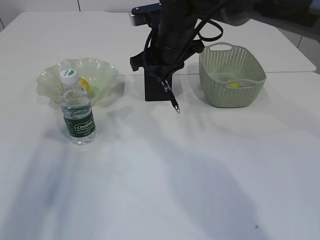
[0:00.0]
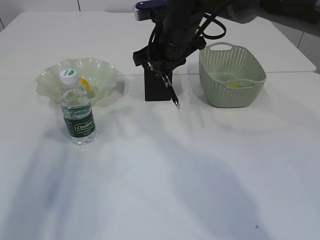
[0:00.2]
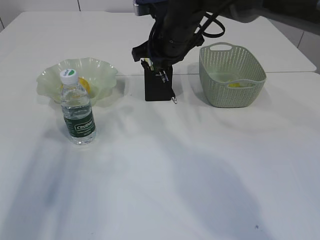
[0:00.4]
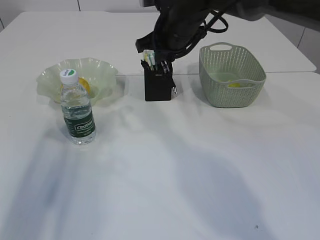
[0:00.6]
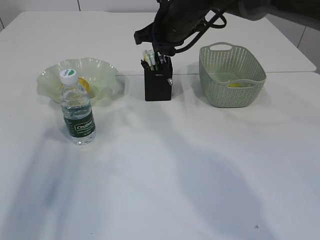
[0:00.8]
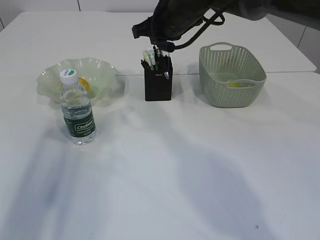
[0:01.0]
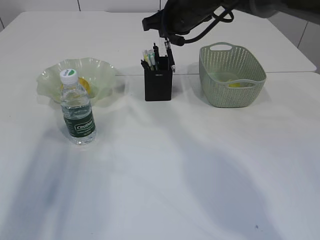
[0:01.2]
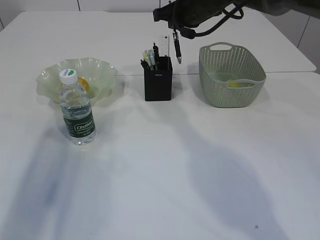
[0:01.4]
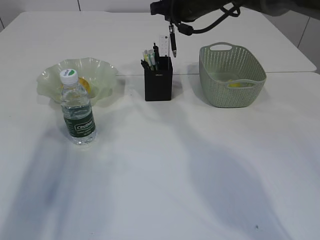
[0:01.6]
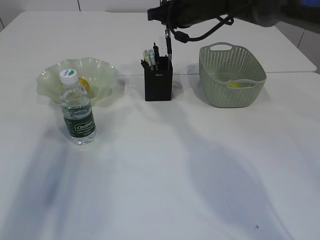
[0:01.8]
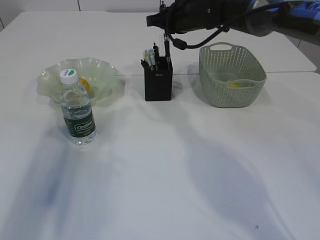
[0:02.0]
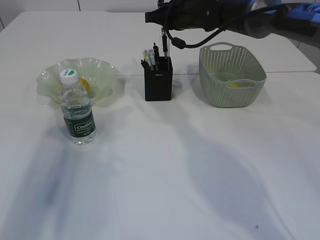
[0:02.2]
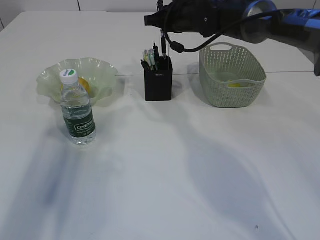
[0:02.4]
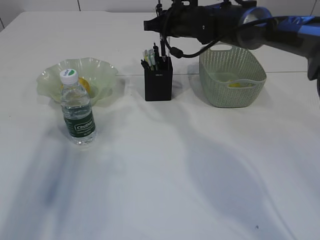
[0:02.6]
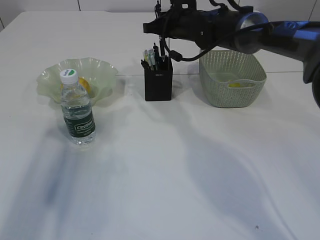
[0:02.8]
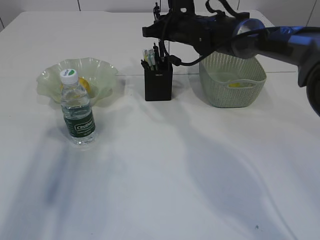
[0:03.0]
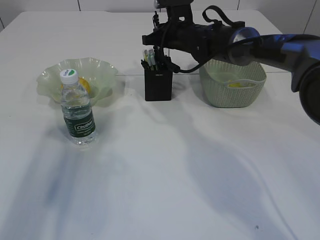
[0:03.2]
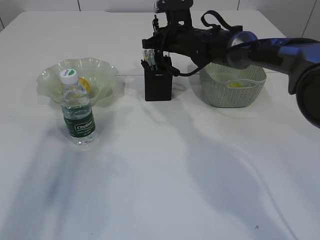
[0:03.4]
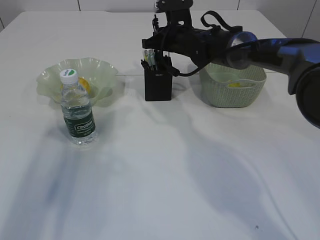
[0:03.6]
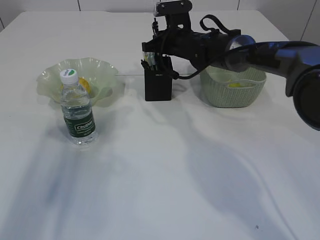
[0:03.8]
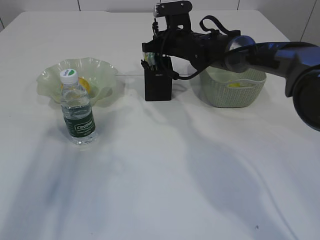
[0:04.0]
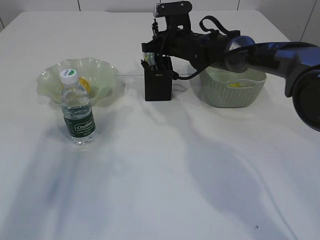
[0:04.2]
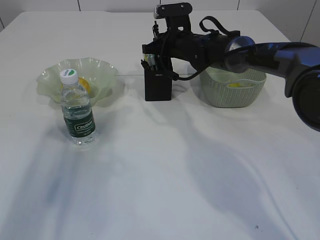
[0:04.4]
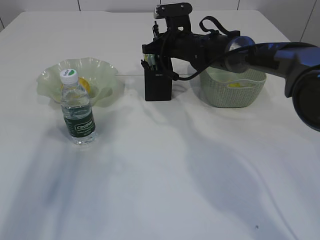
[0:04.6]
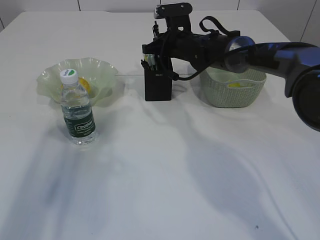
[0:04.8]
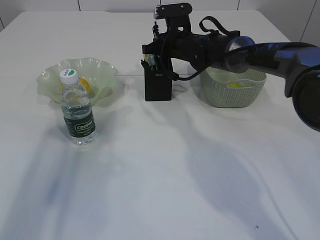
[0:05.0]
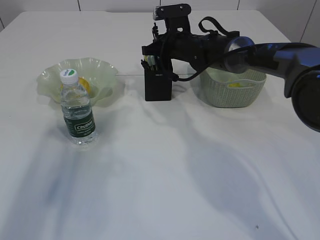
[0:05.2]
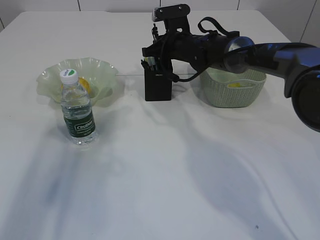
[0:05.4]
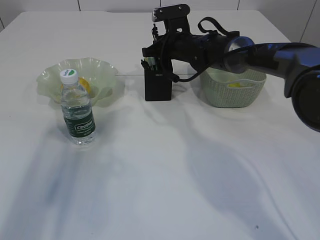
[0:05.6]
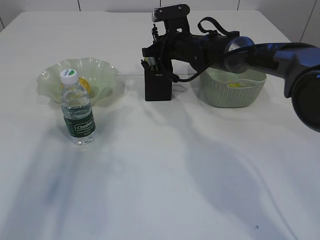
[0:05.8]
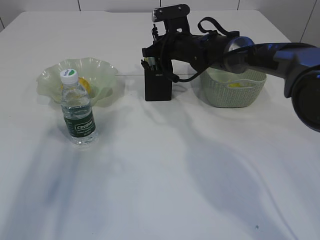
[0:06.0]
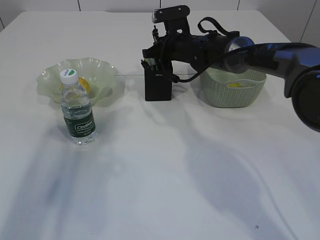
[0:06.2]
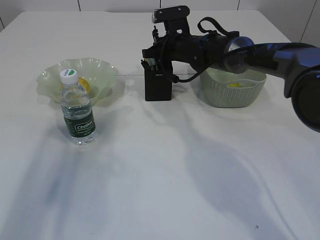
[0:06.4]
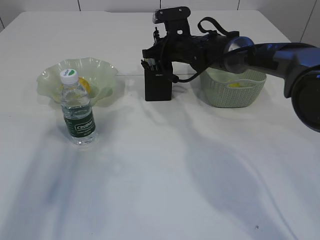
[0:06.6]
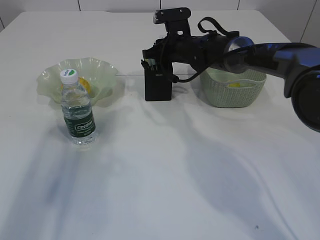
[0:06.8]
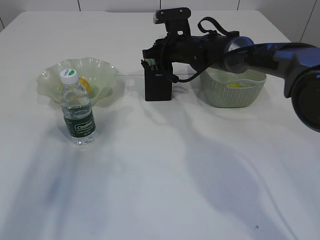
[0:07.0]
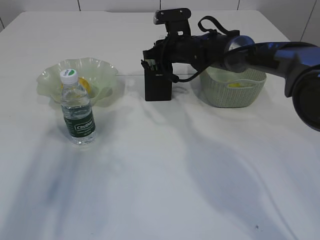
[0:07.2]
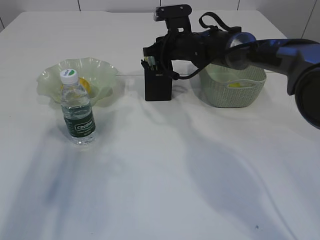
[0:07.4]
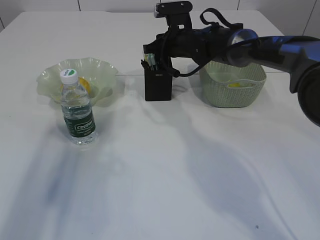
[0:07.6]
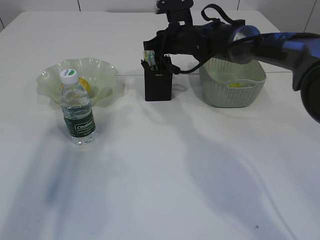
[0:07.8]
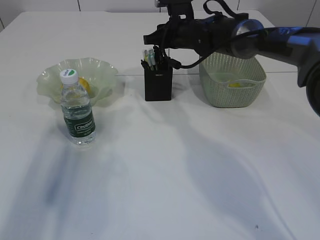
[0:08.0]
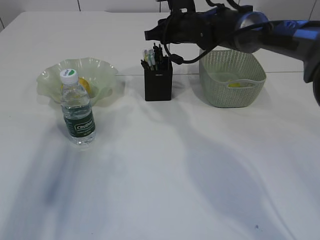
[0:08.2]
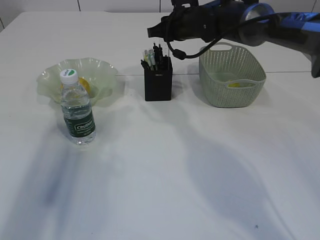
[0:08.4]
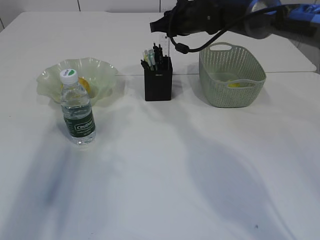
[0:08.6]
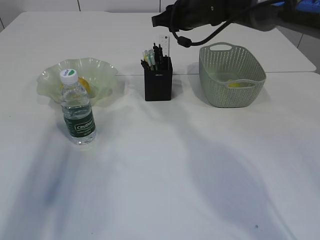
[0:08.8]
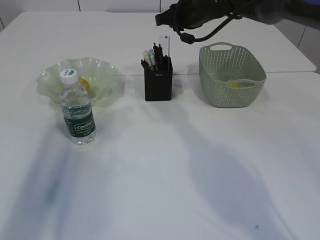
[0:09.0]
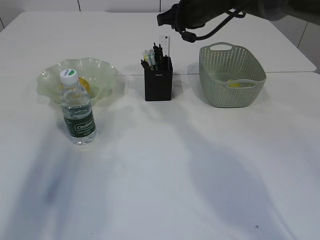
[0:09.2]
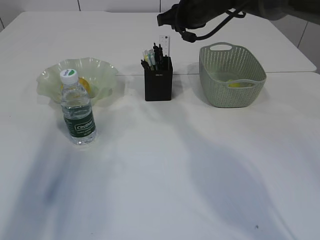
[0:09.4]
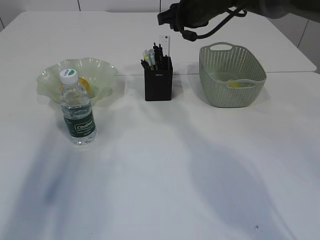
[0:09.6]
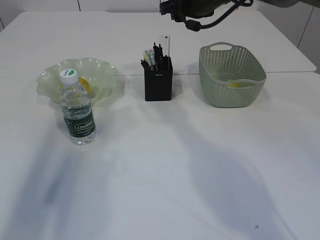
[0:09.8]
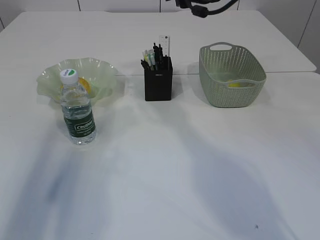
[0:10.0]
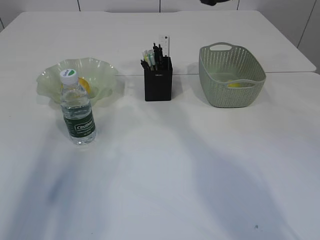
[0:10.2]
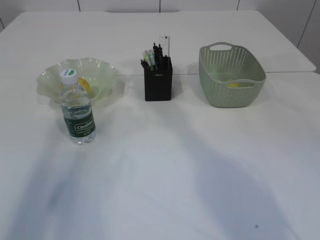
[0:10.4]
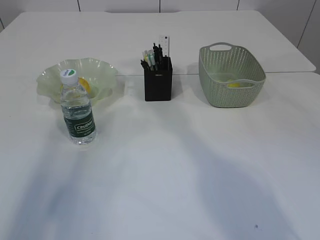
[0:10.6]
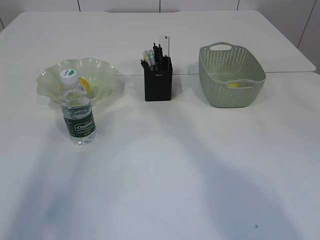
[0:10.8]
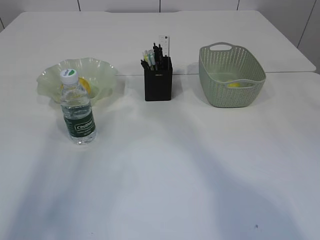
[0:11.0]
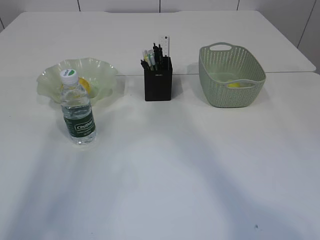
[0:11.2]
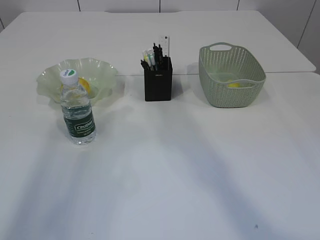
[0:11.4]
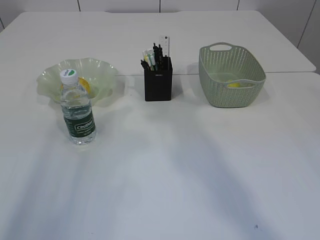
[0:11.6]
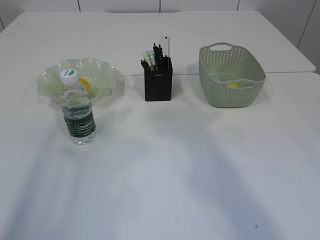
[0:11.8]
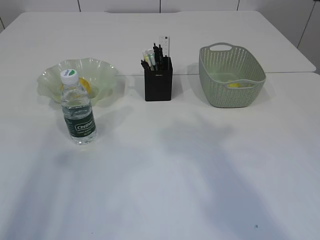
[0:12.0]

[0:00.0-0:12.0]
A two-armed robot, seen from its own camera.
Step, 0:00.0 to 0:09.8: Place the pen into the pen holder.
0:00.0 to 0:01.6: The right gripper is displaced forward and to the right by approximately 10 cm.
0:01.6 to 0:03.0: The right gripper is displaced downward by some 5 cm.
0:03.0 to 0:04.4: The grippers move only a little.
0:04.4 to 0:06.0: Neither gripper changes place.
0:06.0 to 0:07.6: There are only small adjustments of the grippers.
0:07.6 to 0:09.0: The right gripper heads upward, covering approximately 10 cm.
0:09.0 to 0:10.4: The right gripper travels upward by approximately 10 cm.
0:10.4 to 0:12.0: The left gripper is displaced backward by roughly 10 cm.

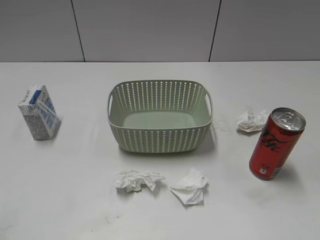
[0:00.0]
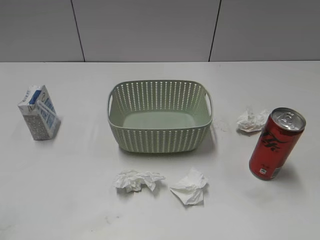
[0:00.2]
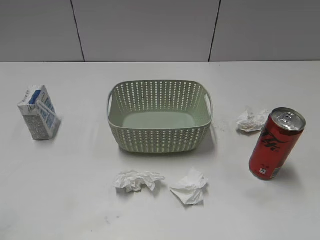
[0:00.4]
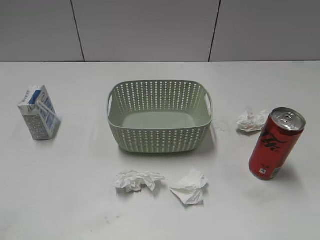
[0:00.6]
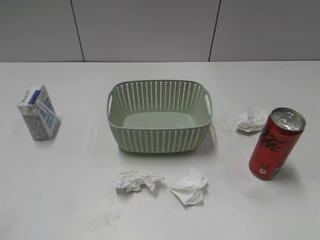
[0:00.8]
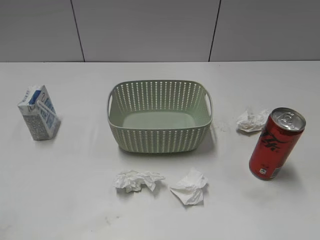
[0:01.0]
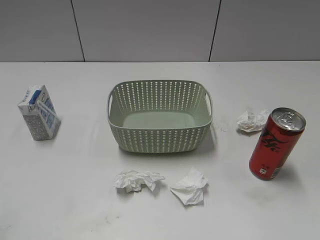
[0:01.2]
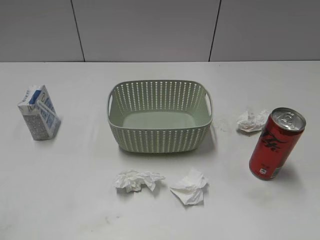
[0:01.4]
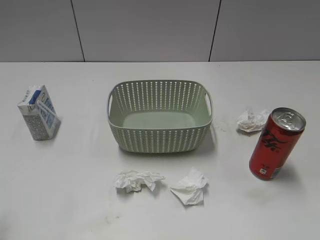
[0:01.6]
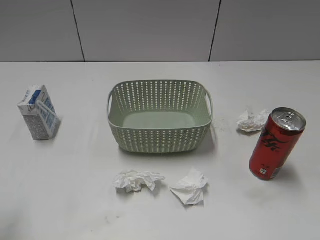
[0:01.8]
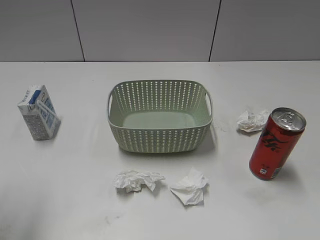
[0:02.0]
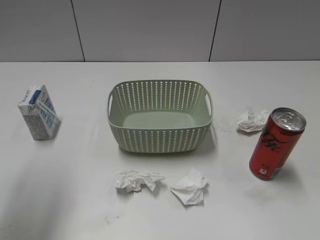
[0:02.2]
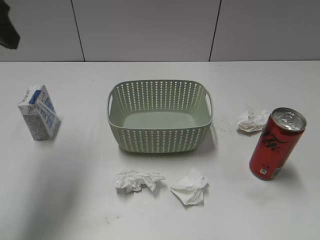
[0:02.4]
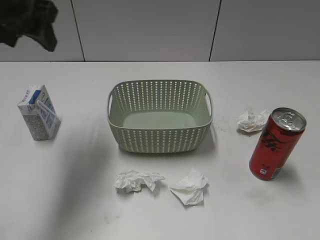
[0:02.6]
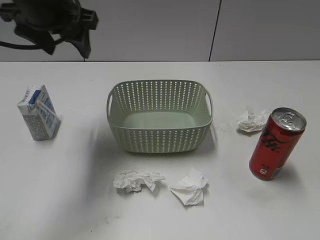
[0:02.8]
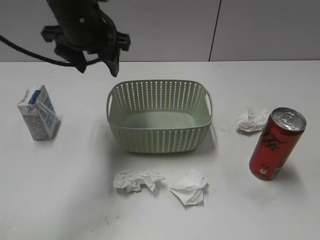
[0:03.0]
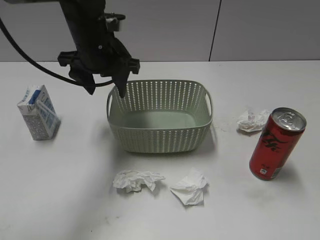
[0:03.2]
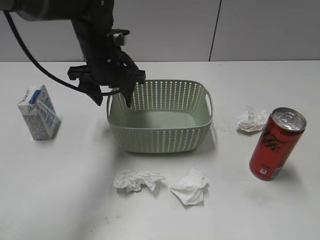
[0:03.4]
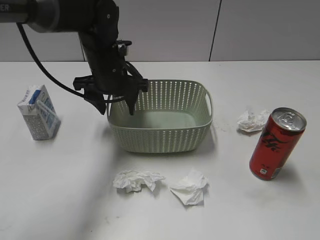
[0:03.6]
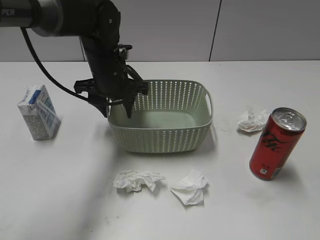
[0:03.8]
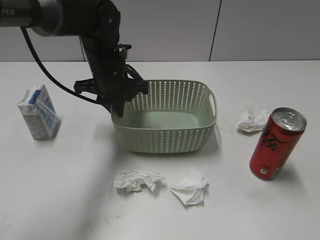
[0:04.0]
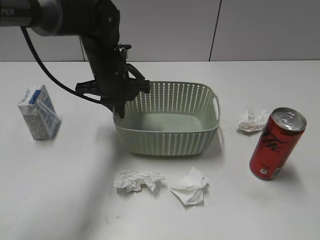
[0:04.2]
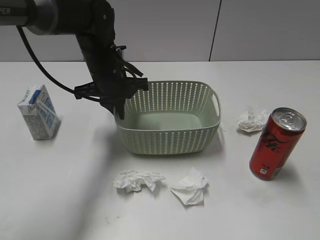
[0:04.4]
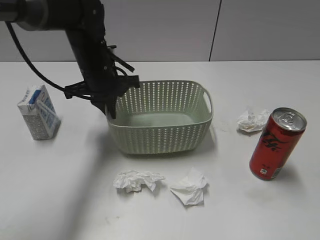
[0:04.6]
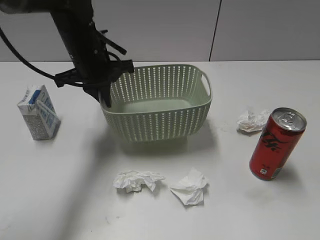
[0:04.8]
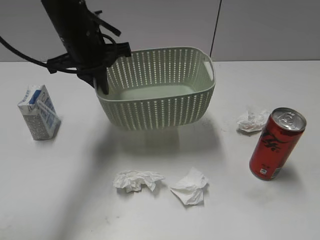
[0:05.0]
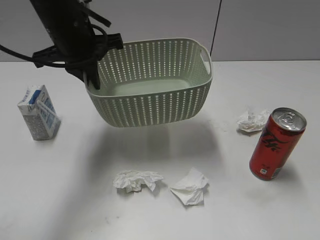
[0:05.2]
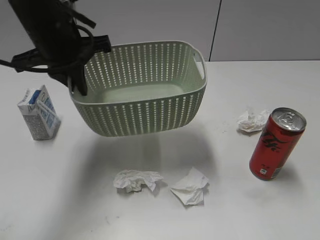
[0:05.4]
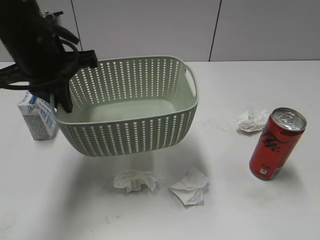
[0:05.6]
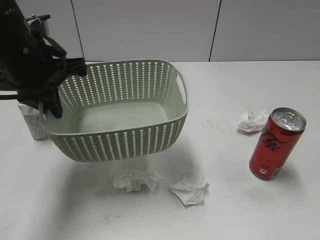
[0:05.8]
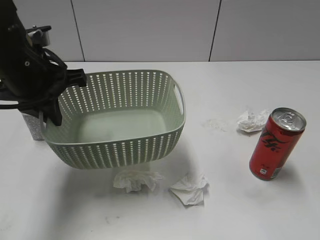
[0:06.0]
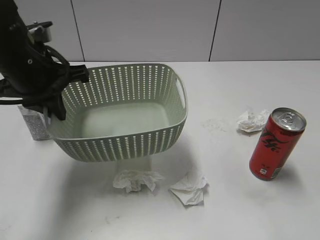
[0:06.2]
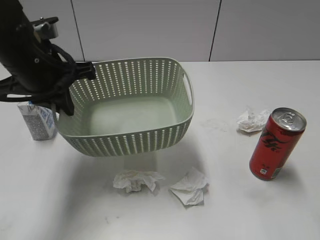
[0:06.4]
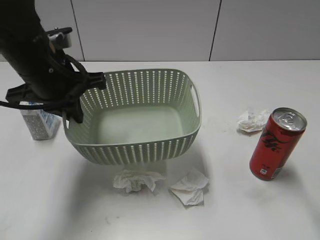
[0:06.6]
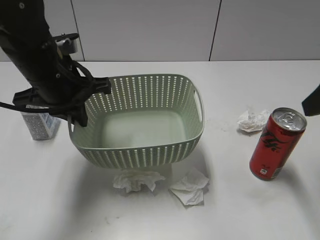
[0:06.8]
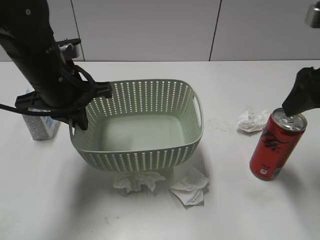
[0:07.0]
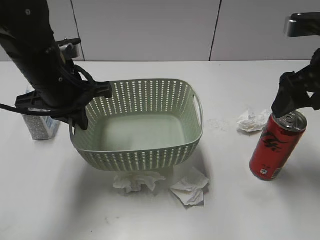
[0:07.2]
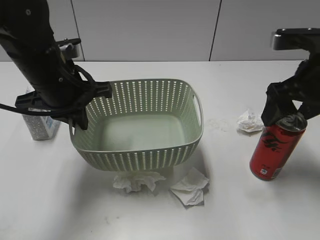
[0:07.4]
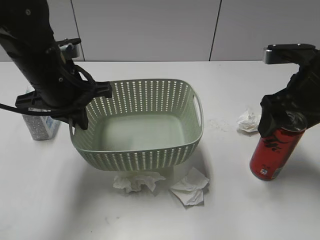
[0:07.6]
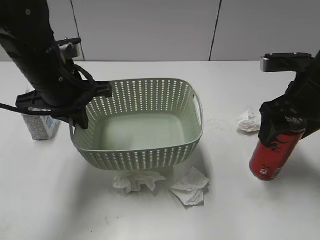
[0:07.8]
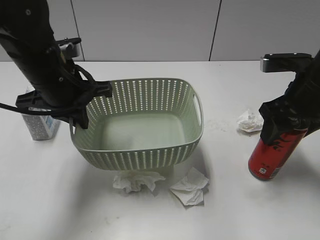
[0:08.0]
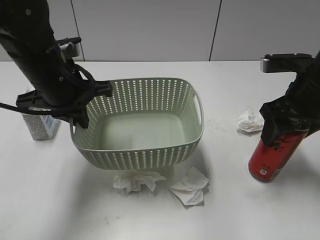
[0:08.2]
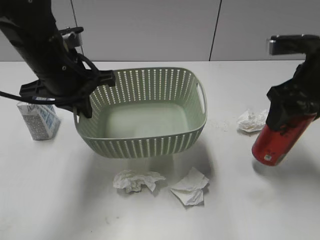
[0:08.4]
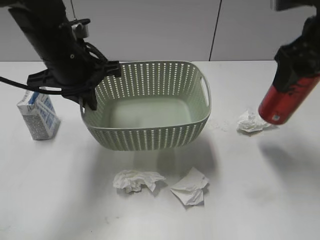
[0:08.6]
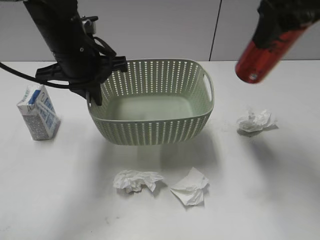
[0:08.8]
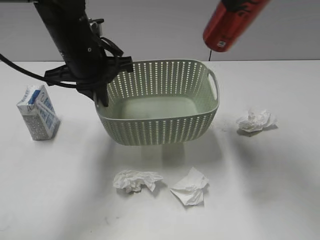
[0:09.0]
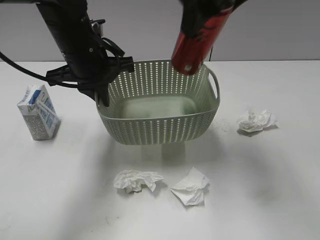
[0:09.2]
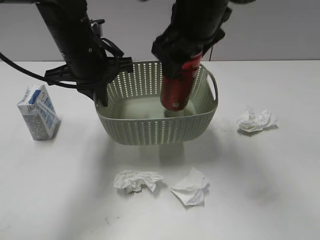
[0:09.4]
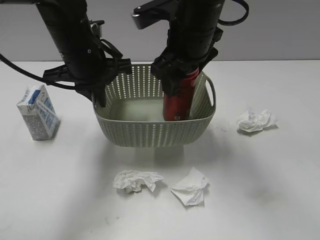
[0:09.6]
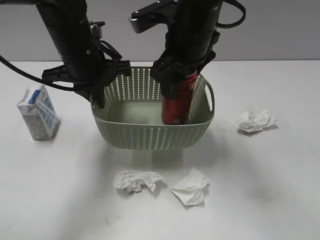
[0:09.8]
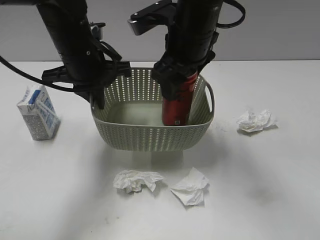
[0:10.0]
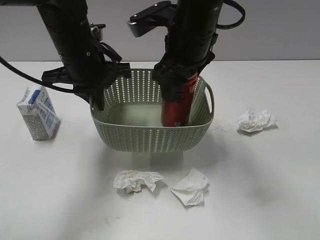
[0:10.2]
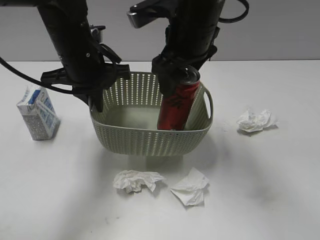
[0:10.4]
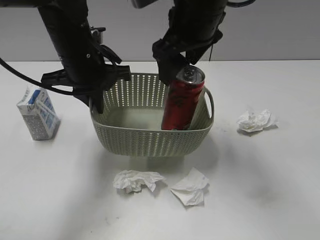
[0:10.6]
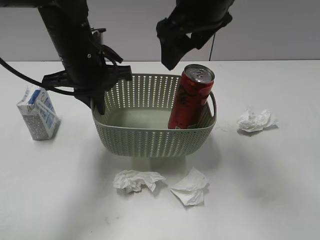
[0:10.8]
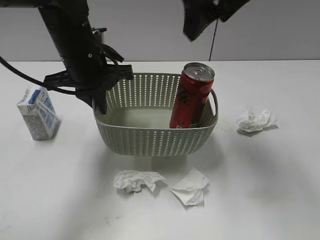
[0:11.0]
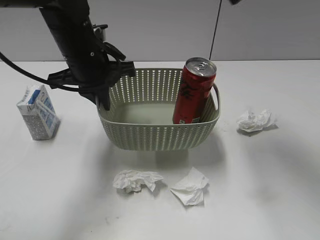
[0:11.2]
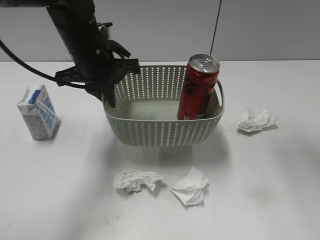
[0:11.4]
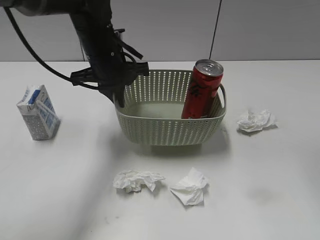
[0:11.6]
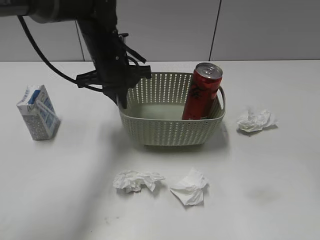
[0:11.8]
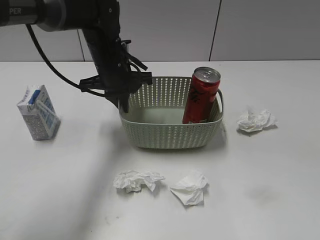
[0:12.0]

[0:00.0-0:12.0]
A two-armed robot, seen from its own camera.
Step, 0:02.4 to 0:04.0: Grasp the basket with left gripper.
Step, 0:04.2 to 0:06.6: Lift the basket with left gripper.
Step, 0:06.8 to 0:08.0: Grasp the cola can with right gripper.
Step, 0:08.2 to 0:10.4: Place the cola can in the basket with right gripper.
0:01.6 to 0:03.0: The left gripper travels forward and to the right by about 35 cm.
0:03.0 to 0:04.4: The left gripper moves downward, some 10 cm, and closes up.
0:04.4 to 0:06.0: The right gripper is displaced upward by about 5 cm, while the left gripper travels backward, upward and to the left by some 15 cm.
0:06.0 to 0:07.6: The right gripper shifts roughly 25 cm forward and downward, and opens its fingers.
0:07.6 to 0:09.0: The left gripper goes some 5 cm forward. Meanwhile the right gripper goes roughly 20 cm upward and to the left, and closes.
0:09.0 to 0:10.4: The right gripper shifts about 15 cm downward and to the left, and opens its fingers.
0:10.4 to 0:12.0: The left gripper heads forward and downward, covering approximately 10 cm. The right gripper is displaced to the right, backward and upward by roughly 30 cm, and closes up.
